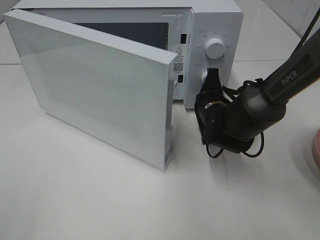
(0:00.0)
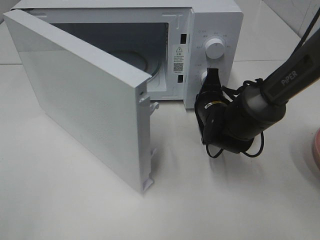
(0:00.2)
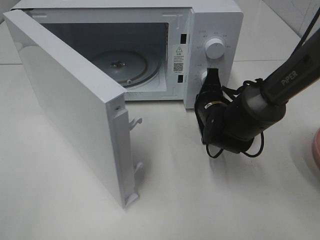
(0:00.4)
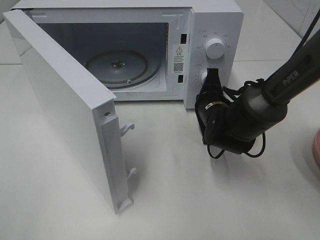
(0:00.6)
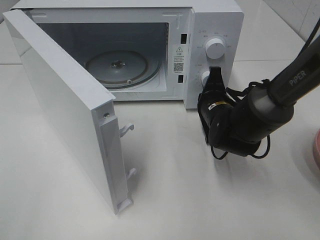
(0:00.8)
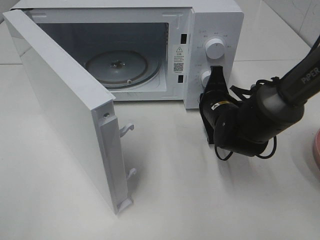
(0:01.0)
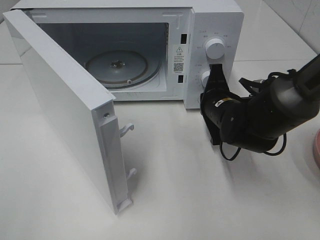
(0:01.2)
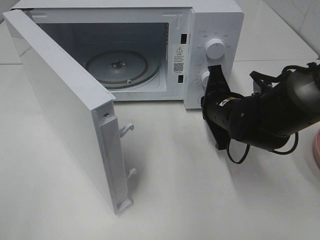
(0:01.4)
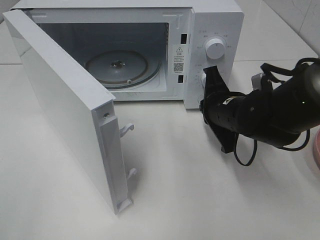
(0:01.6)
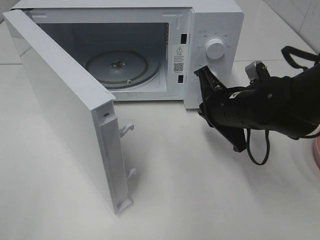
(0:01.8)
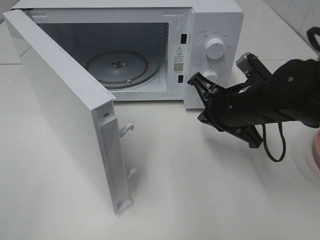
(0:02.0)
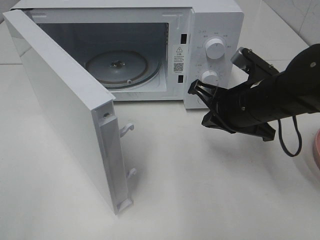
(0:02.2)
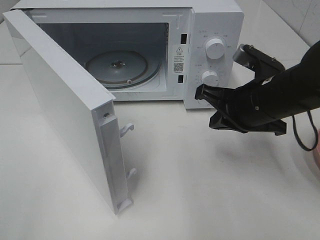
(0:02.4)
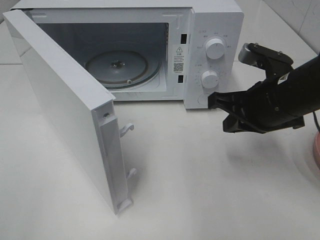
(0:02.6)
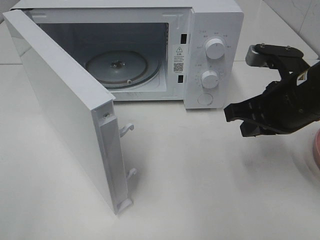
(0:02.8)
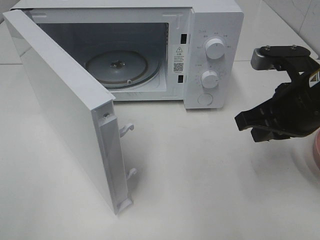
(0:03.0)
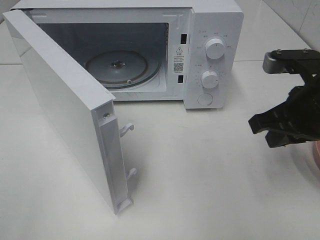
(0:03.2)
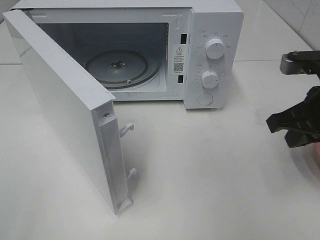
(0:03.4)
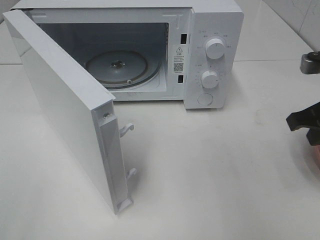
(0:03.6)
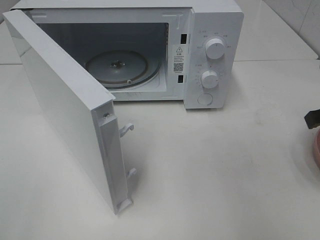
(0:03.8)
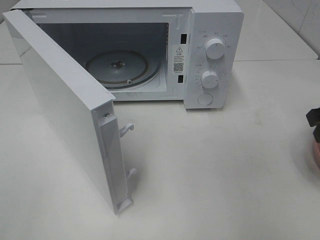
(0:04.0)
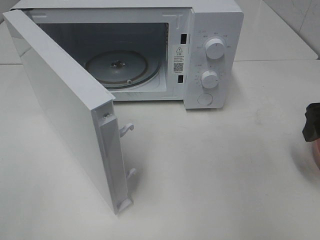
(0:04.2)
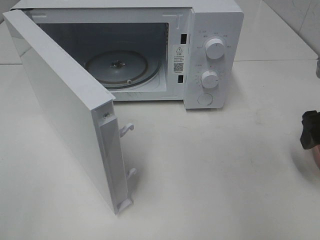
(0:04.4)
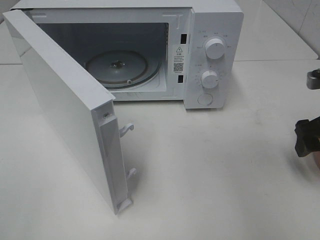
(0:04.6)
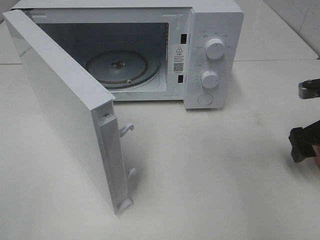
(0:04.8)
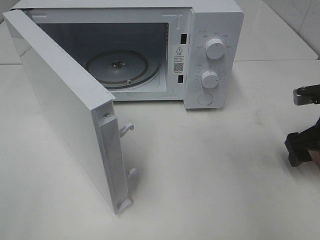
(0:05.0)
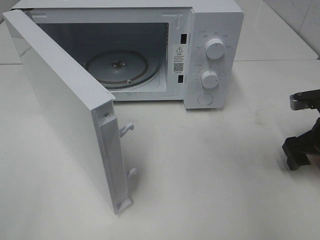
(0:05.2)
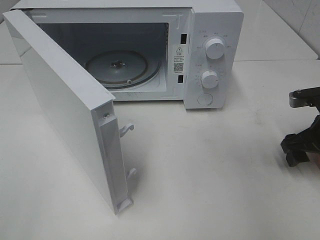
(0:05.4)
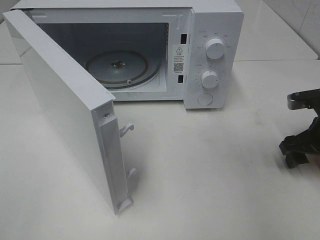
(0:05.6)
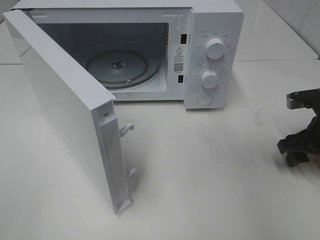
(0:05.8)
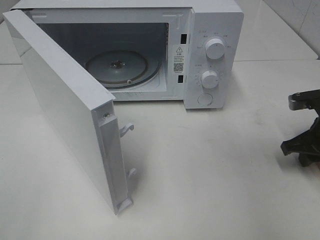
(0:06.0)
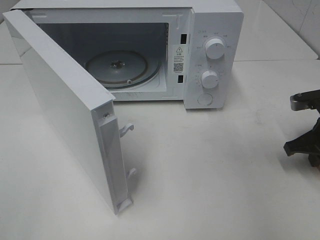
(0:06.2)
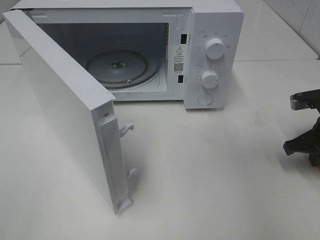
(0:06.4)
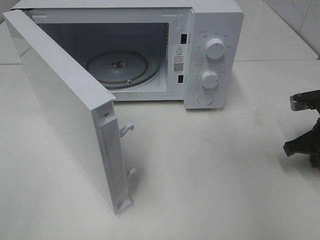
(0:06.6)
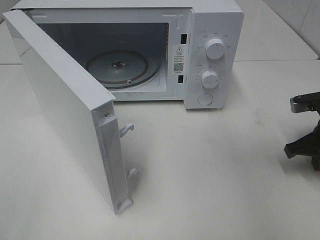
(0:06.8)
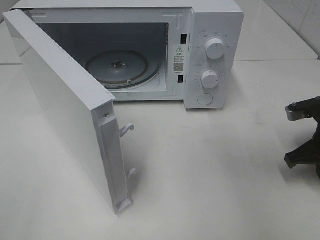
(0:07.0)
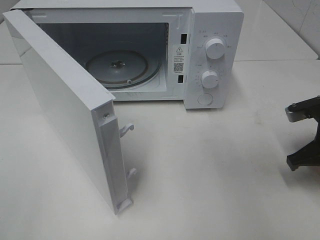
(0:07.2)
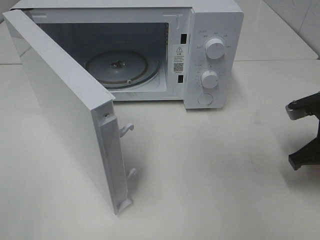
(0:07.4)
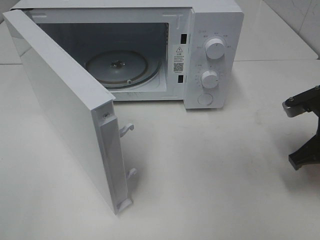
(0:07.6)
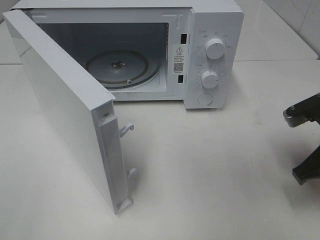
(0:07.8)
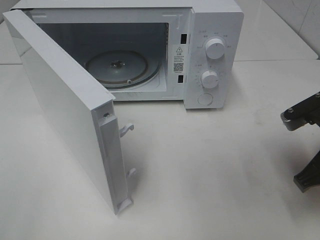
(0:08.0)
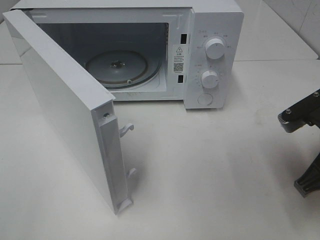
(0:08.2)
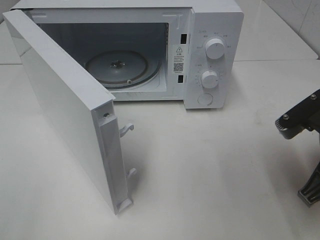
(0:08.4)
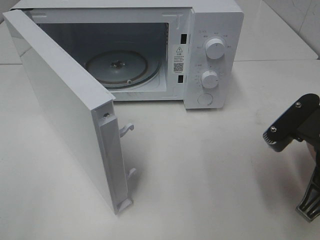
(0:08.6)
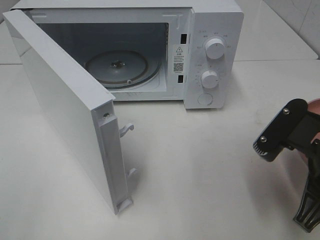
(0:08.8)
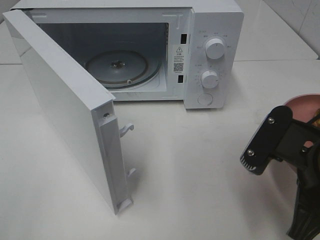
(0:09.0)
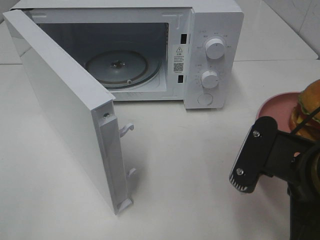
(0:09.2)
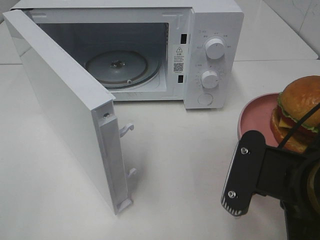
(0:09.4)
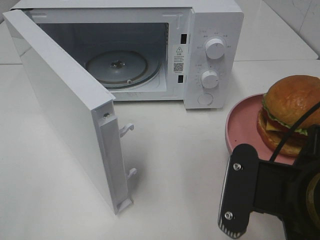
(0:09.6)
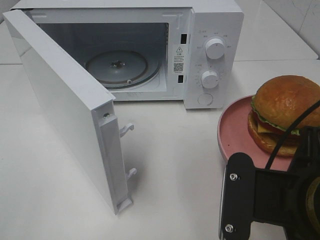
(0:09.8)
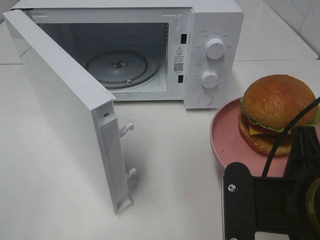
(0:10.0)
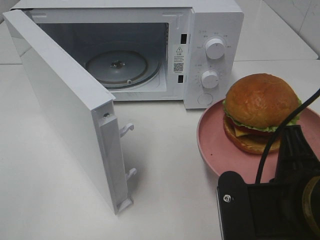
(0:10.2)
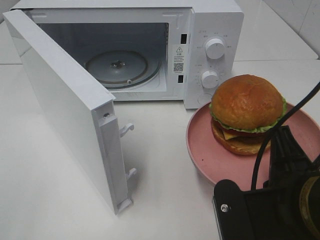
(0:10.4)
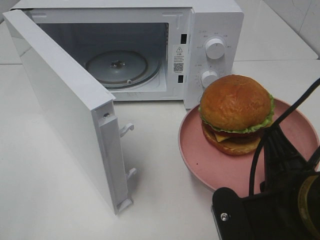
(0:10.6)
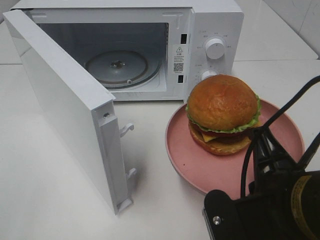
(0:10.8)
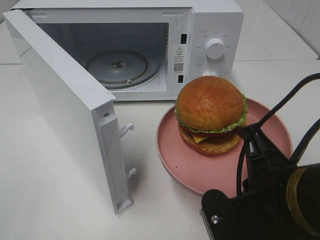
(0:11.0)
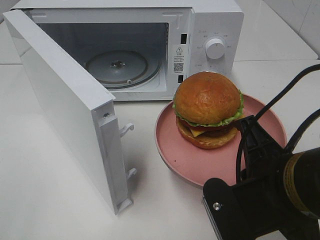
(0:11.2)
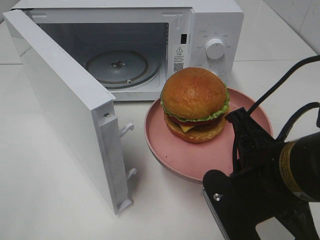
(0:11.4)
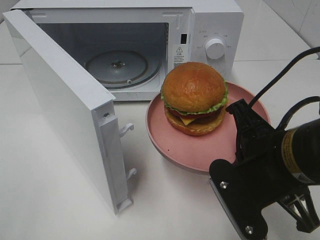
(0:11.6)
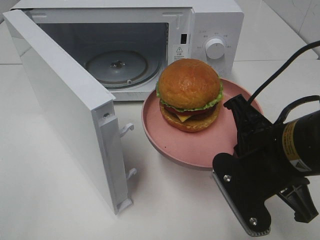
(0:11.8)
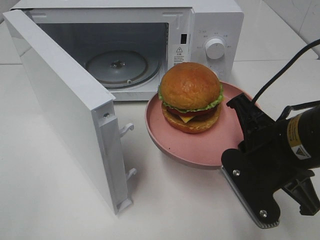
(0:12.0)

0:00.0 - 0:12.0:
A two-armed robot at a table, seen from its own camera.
Task of the whole recording: Heat the burger.
Step, 0:01.2 - 0:07.0: Right hand: grab the plate with the hamburger.
0:00.0 - 0:01.6: The right gripper moves backward, roughly 5 cm.
0:01.6 - 0:03.0: The right gripper goes about 15 cm upward, backward and to the right.
0:03.0 - 0:04.4: The right gripper shifts some 10 cm to the right, and opens.
0:04.4 - 0:06.0: The right gripper heads downward, covering roughly 10 cm, and closes up.
0:06.0 - 0:07.6: The right gripper moves approximately 5 cm, and closes.
0:07.6 - 0:09.0: The right gripper moves backward and to the left, approximately 15 cm.
0:09.0 - 0:10.4: The right gripper changes place by some 5 cm.
0:10.4 - 0:12.0: The right gripper travels forward by approximately 10 cm.

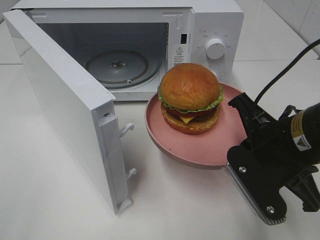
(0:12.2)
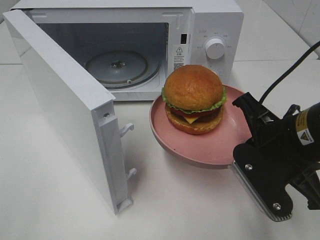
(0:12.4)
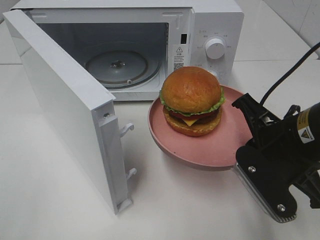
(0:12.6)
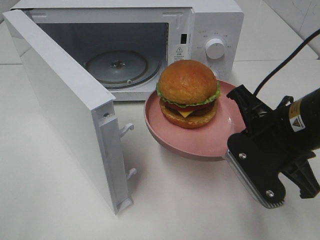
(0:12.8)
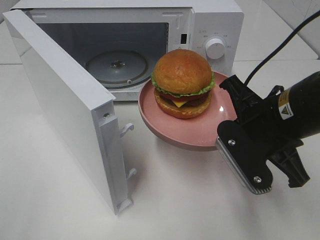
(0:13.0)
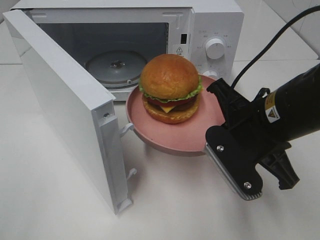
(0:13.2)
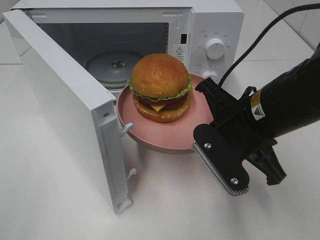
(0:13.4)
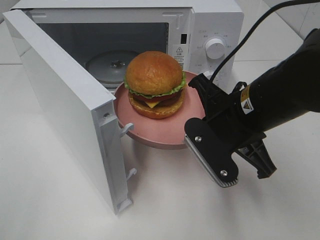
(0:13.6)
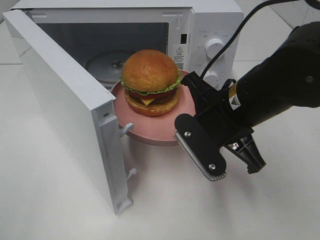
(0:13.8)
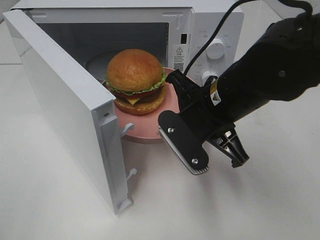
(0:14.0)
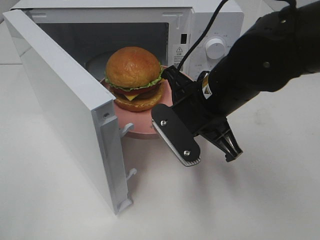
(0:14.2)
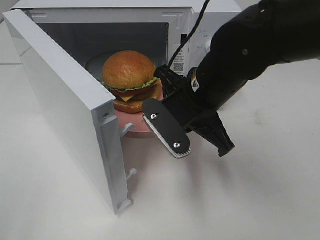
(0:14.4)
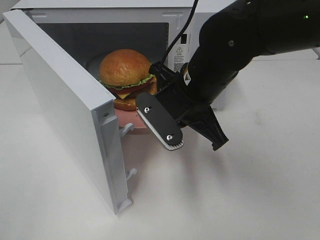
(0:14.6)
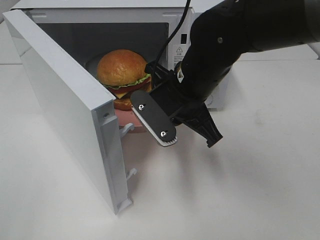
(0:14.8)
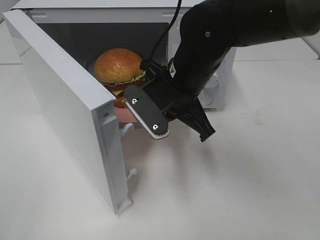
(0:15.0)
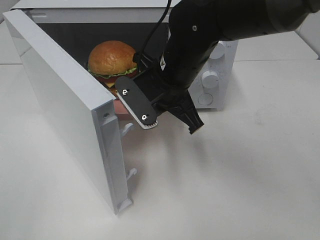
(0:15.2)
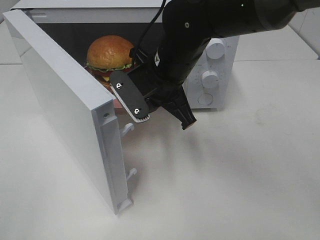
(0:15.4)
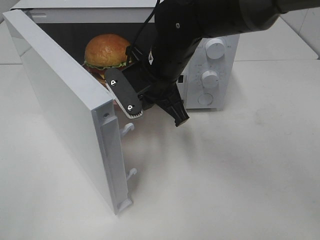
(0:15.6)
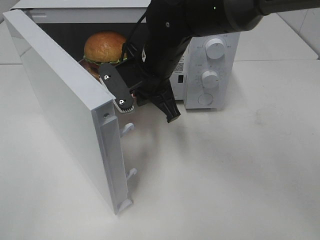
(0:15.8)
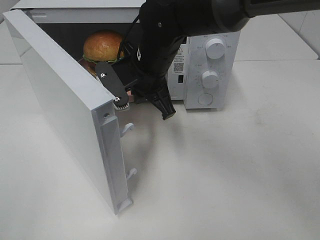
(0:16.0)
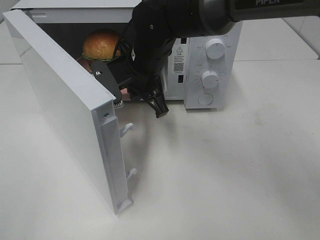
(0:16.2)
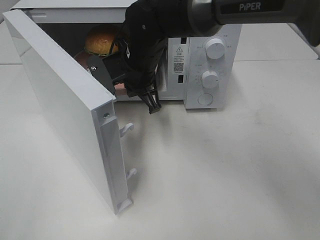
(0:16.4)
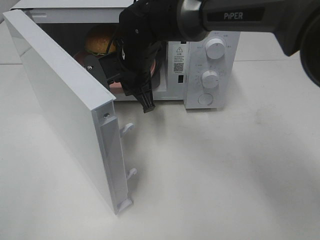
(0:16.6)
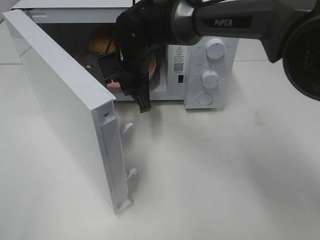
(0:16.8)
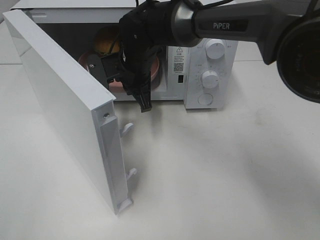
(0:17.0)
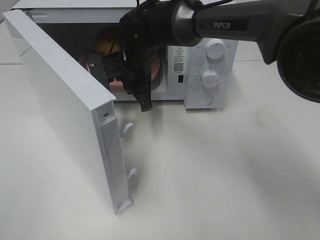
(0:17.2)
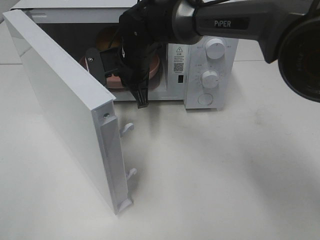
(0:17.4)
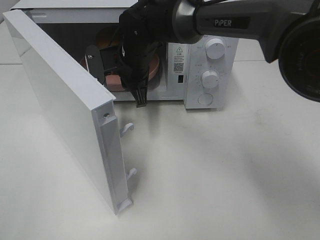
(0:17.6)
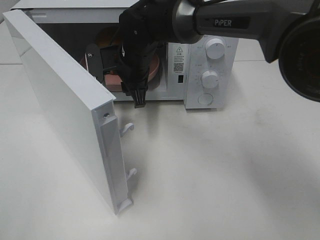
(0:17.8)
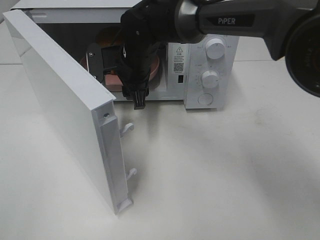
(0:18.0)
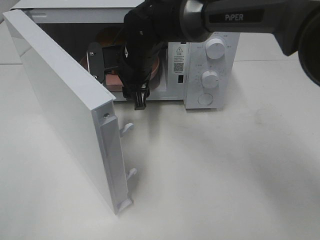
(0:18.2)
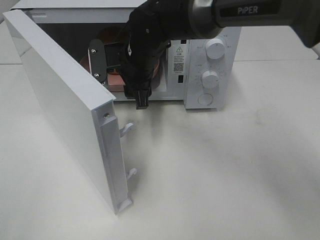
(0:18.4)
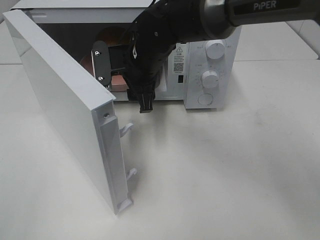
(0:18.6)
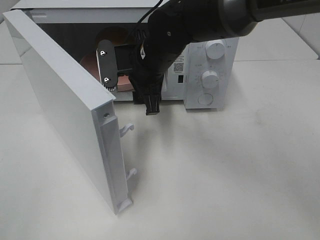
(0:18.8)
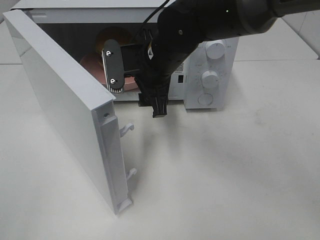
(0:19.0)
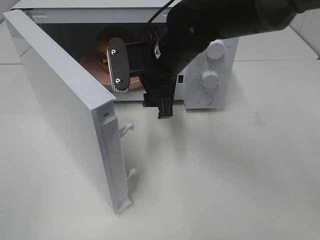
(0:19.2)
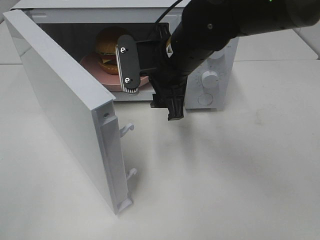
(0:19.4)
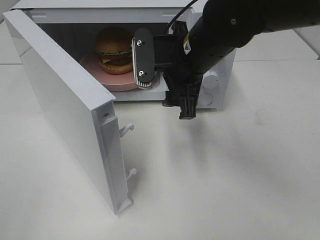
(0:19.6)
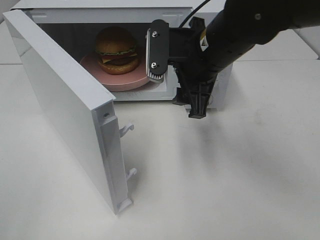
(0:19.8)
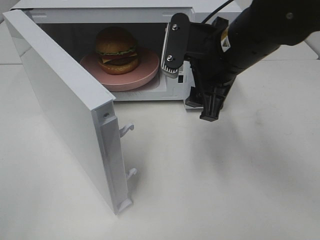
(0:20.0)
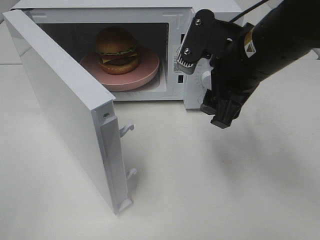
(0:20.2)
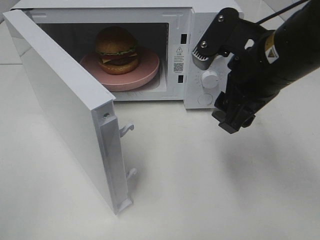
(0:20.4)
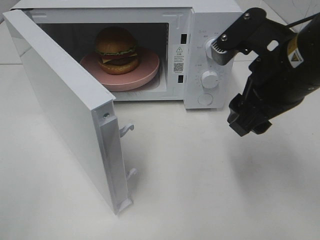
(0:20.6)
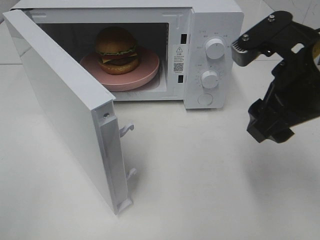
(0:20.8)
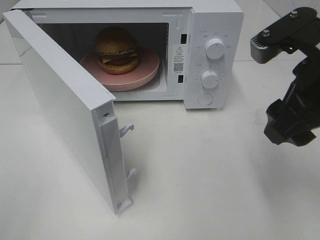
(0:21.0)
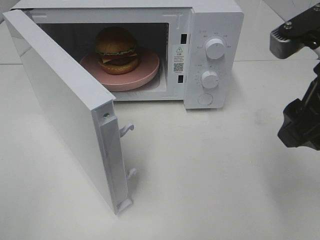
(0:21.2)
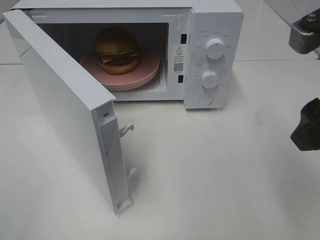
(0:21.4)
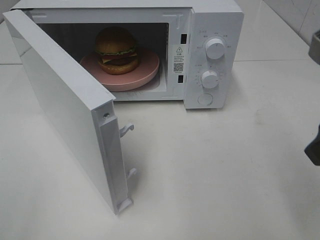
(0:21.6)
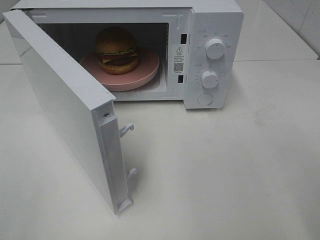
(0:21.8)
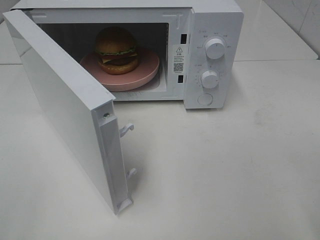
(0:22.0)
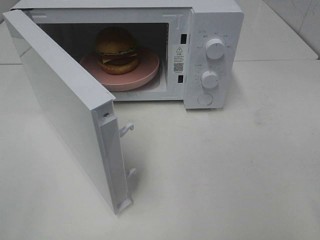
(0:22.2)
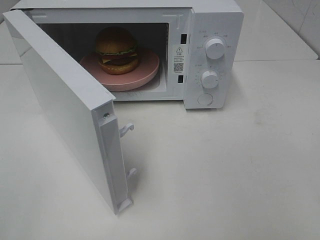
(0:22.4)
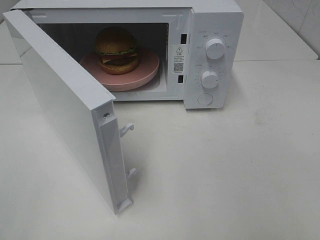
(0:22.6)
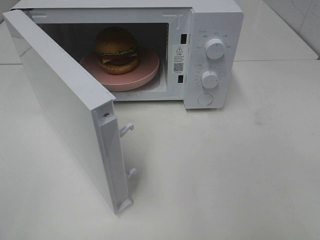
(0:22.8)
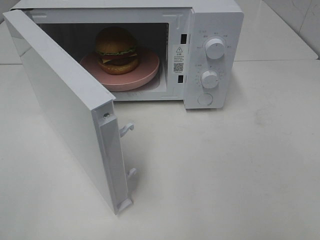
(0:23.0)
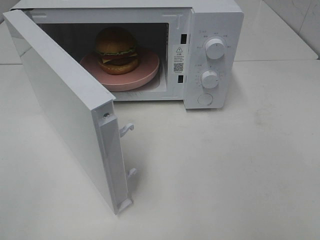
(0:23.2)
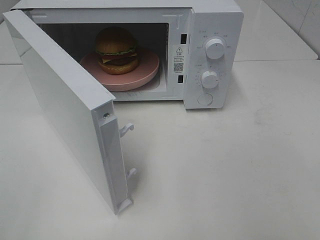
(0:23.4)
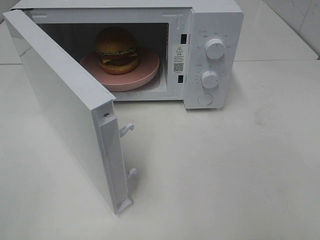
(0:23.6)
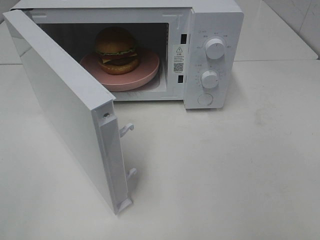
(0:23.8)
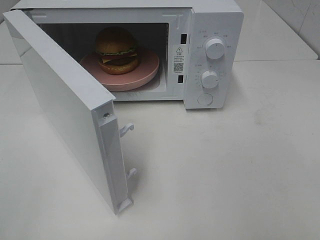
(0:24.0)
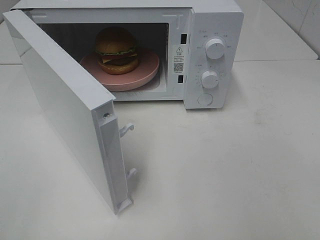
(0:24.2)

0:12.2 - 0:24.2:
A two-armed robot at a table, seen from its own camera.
Task of the whole recording: Heat the burger.
Step, 0:12.2 - 0:17.6: Right hand: place the plate in the microwave.
0:12.2 - 0:13.8: The right gripper shifts roughly 10 cm to the left and forward.
0:13.8 - 0:15.2: The right gripper travels forward and to the left by about 10 cm.
0:15.2 - 0:16.6: The right gripper shifts approximately 10 cm forward and to the left.
0:16.6 - 0:18.2: The right gripper opens.
0:18.2 - 0:19.8: The right gripper heads to the right, backward and upward, covering about 15 cm.
0:19.8 - 0:21.2: The right gripper is displaced backward, to the right and upward by about 20 cm.
0:21.2 - 0:22.6: The right gripper moves backward and to the right, about 15 cm.
